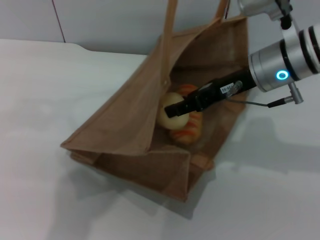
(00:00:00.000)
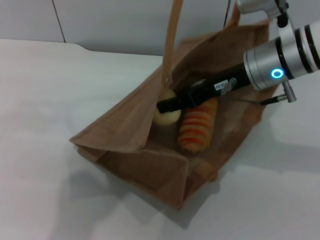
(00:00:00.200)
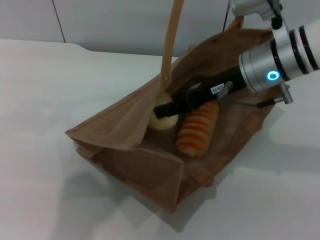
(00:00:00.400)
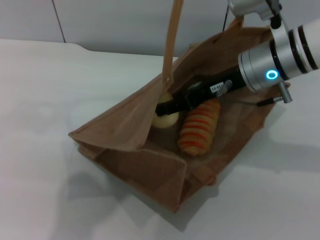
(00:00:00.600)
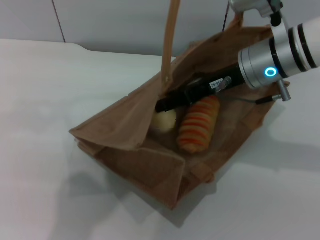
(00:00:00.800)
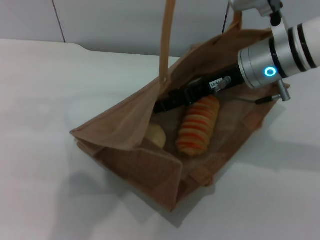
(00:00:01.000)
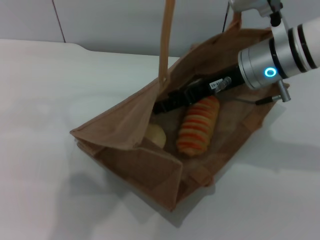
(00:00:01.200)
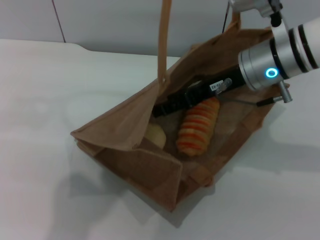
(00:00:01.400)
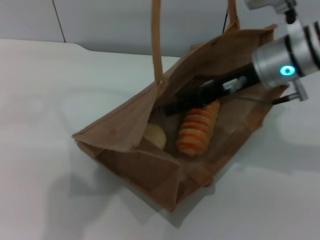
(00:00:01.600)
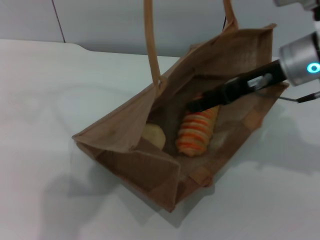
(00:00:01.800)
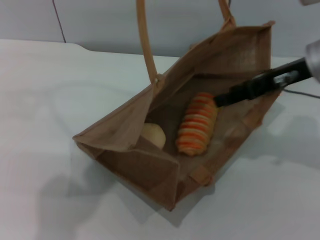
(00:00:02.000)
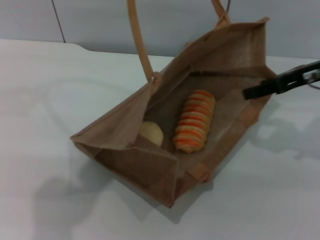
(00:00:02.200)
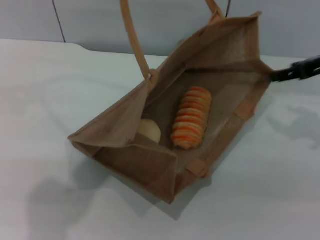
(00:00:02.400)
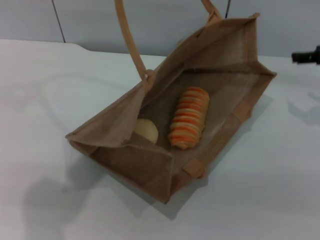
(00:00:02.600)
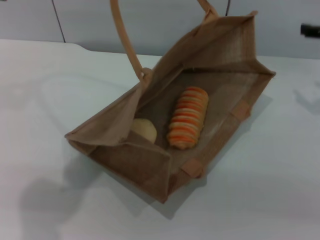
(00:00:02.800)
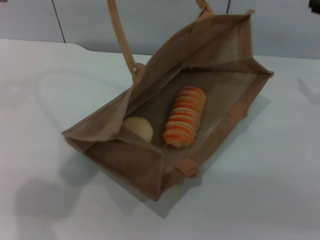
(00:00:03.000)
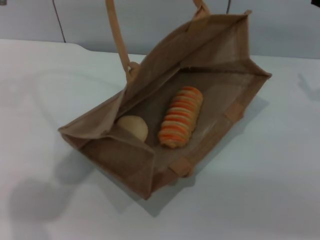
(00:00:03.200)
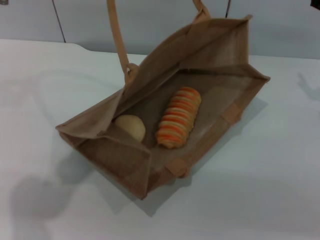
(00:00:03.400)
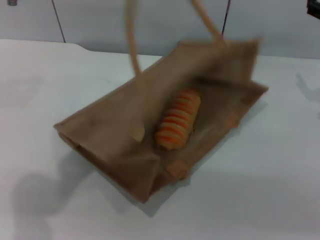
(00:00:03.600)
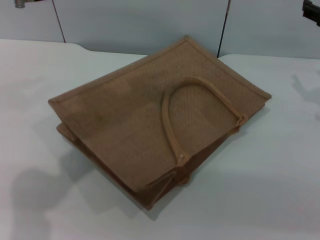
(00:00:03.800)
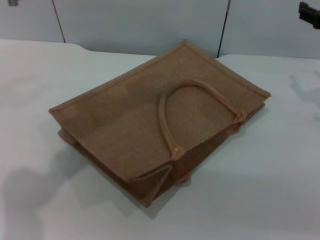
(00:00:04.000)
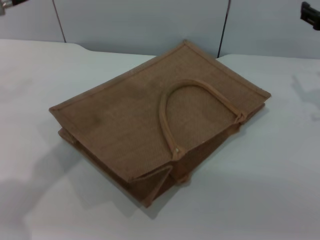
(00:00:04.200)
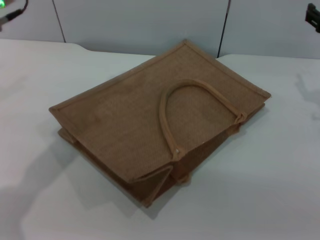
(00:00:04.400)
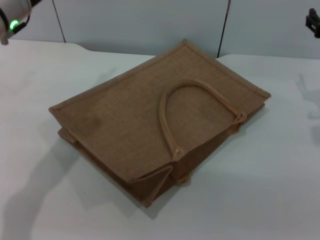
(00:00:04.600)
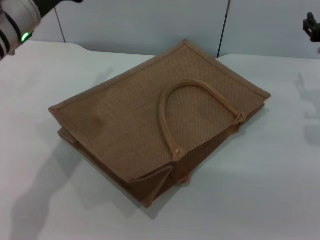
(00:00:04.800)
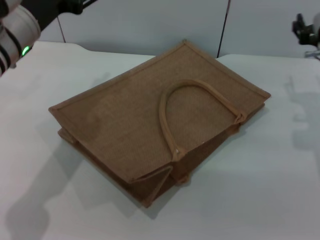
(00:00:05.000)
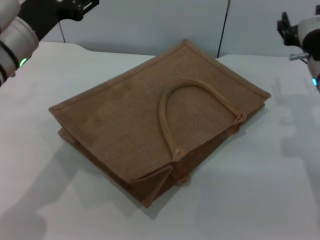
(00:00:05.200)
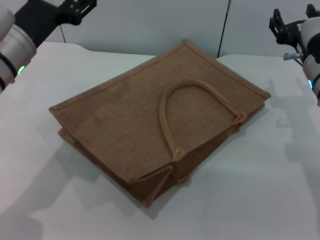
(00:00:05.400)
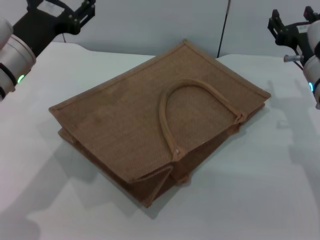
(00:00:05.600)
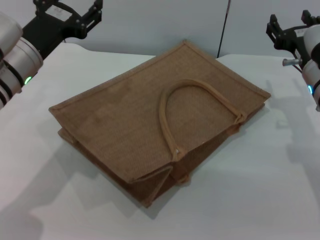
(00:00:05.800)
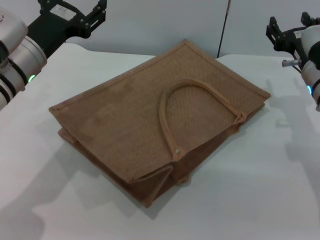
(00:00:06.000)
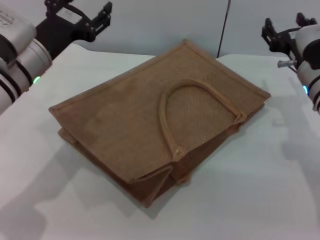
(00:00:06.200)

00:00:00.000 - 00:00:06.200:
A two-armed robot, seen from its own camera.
Task of the whole recording: pick up the bread and egg yolk pastry from the table and place it in the brown handbag.
Step, 00:00:00.000 - 00:00:02.400: Place the egg yolk pastry into the woven bag with the right gripper.
Step, 00:00:02.800 - 00:00:04.400: Lower the woven bag with the left gripper to close it.
00:00:00.000 - 00:00:01.600: The right gripper opens up.
00:00:01.600 - 00:00:03.200: The left gripper heads to the left and downward, covering approximately 10 cm. The right gripper moves to the right, some 15 cm.
00:00:03.200 - 00:00:04.600: The right gripper moves approximately 5 cm. Meanwhile the left gripper goes roughly 10 cm downward, and opens up.
00:00:04.600 - 00:00:06.200: The right gripper is displaced to the left by some 5 cm, while the left gripper travels downward by about 5 cm.
